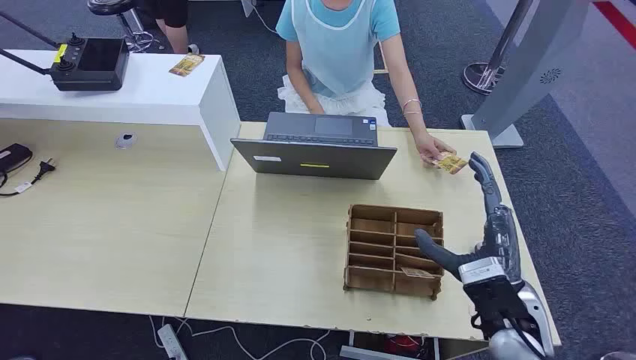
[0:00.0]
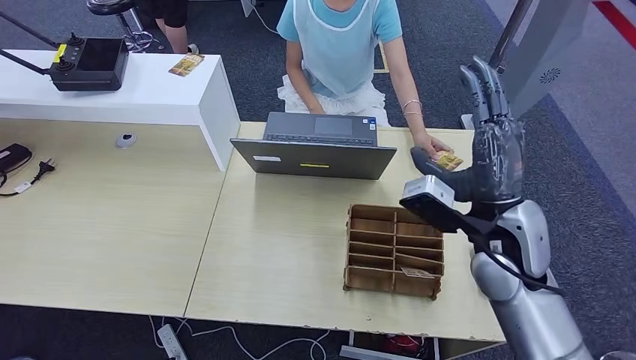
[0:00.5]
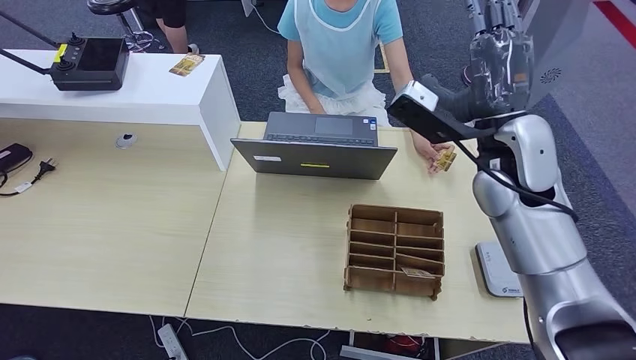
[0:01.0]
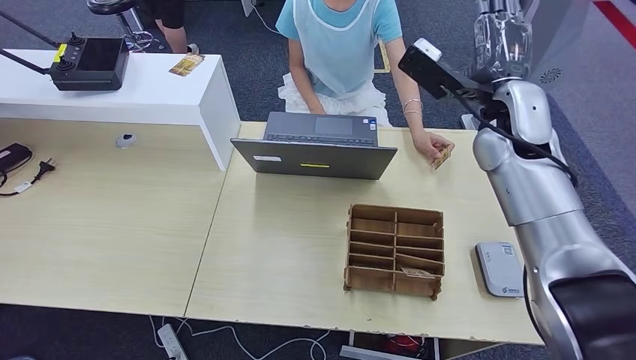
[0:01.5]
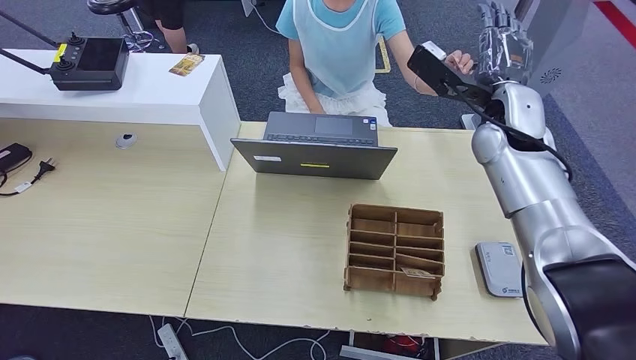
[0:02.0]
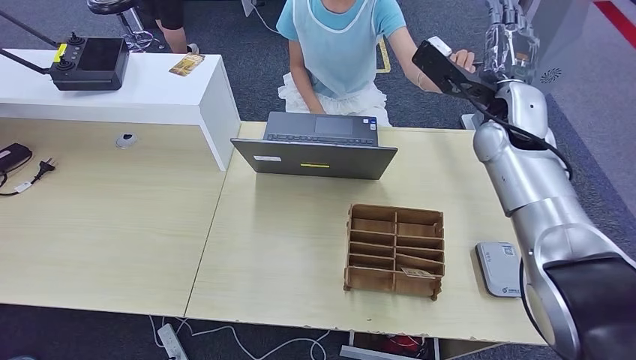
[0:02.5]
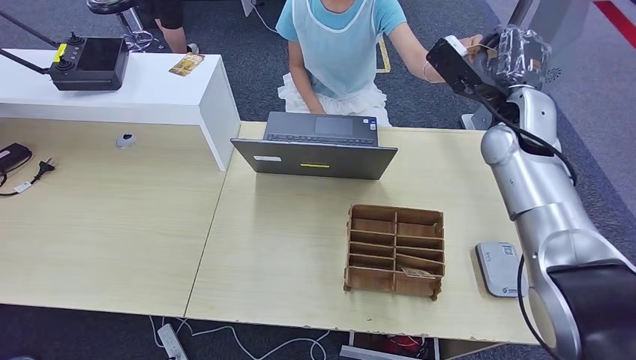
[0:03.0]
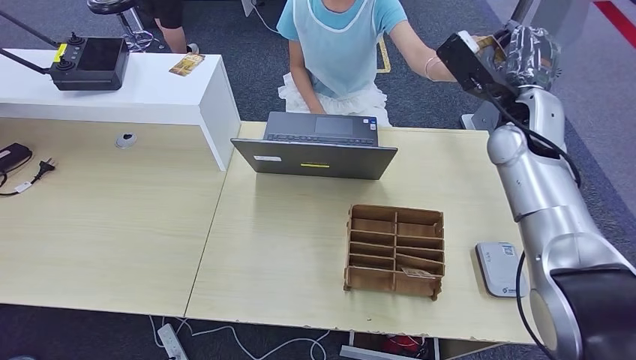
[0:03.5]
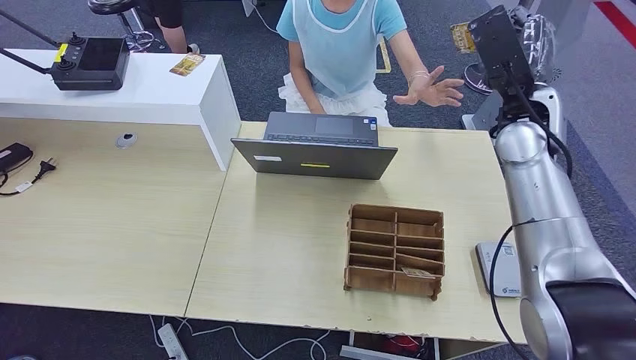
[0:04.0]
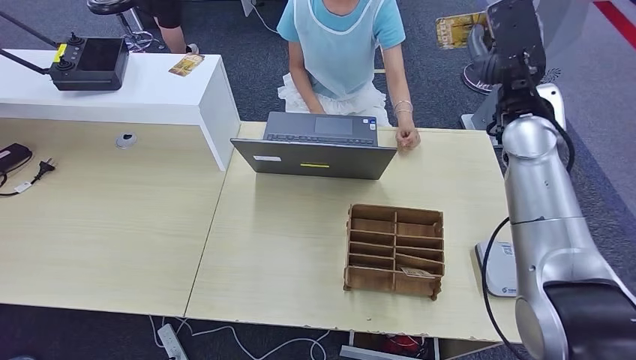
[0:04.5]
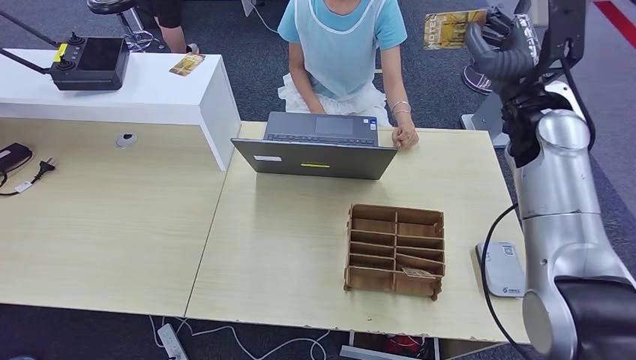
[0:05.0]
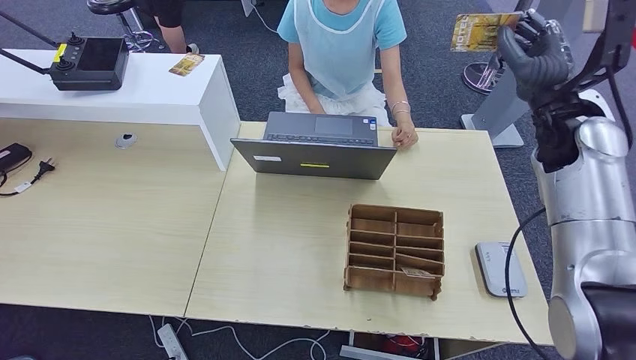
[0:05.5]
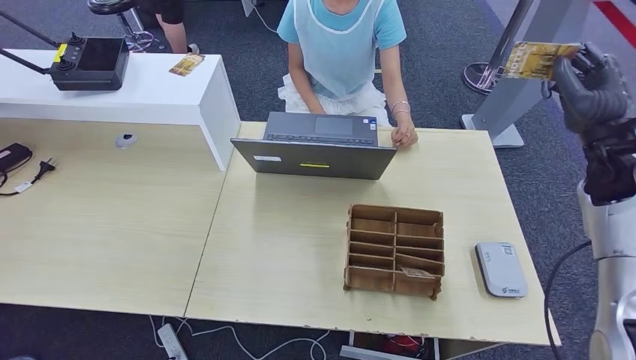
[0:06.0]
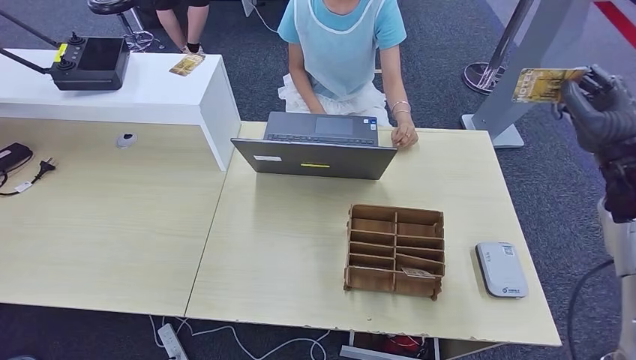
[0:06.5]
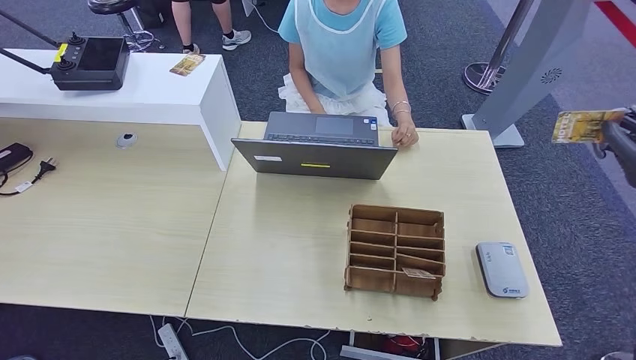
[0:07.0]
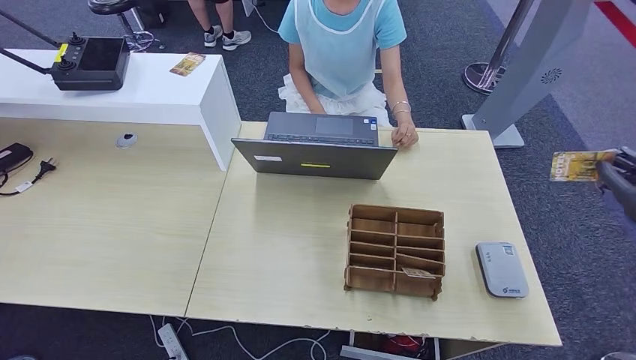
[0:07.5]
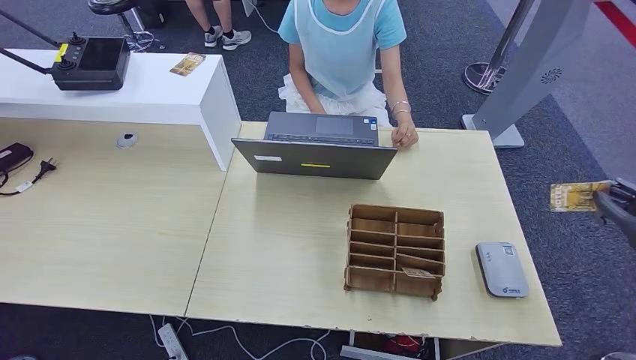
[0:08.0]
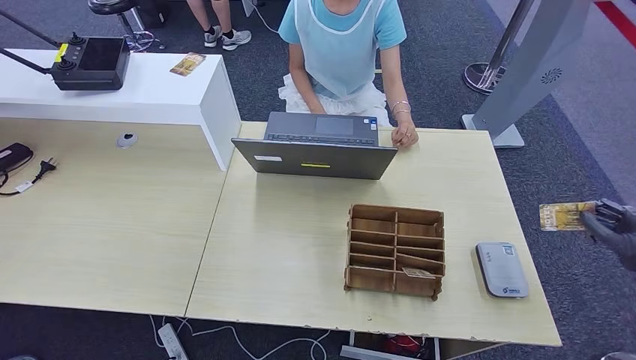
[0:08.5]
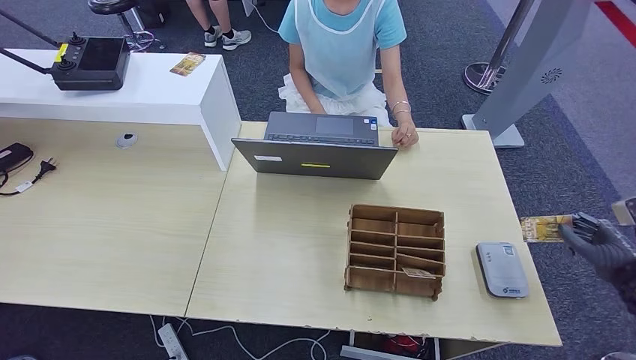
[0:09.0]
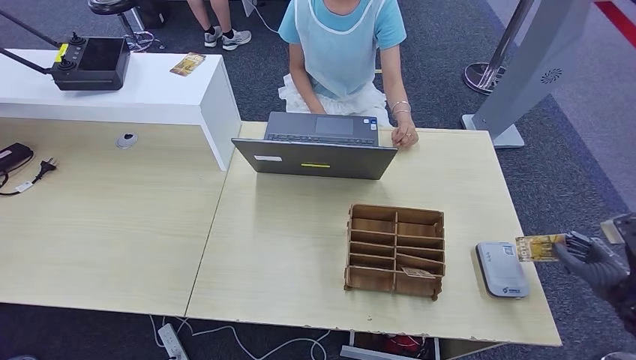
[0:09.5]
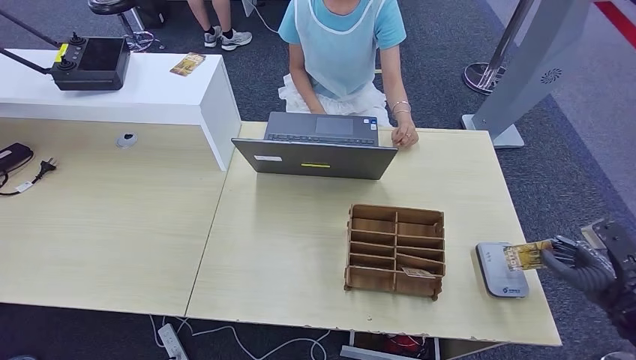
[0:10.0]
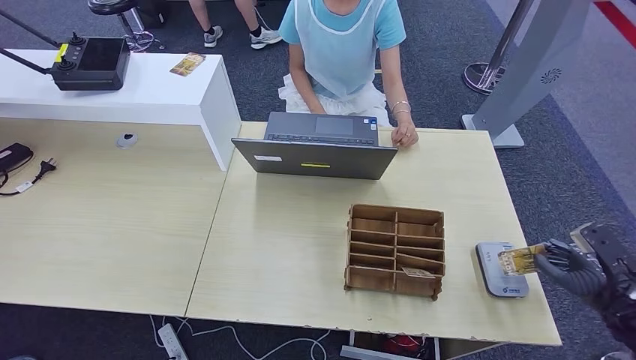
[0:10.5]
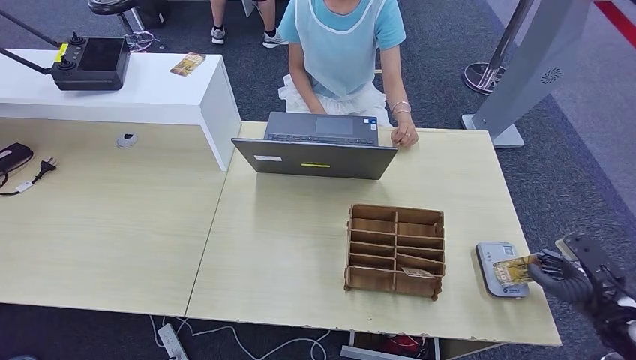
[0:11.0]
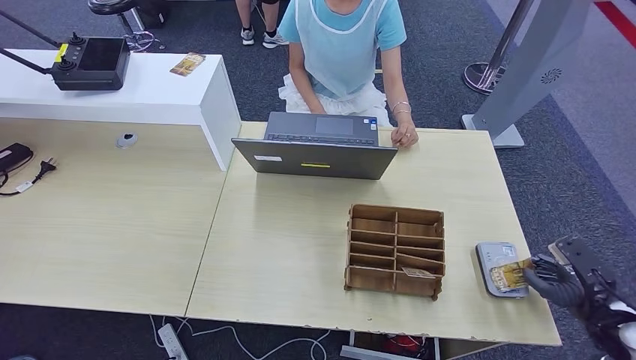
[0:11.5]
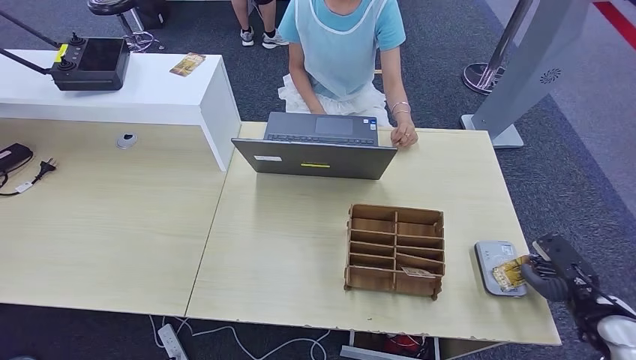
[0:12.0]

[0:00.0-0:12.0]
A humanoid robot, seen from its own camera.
Step, 0:00.0 to 0:04.5: Take the ID card from the person's hand.
0:04.0 to 0:06.0: The right hand heads to the right, covering about 15 cm.
0:06.0 to 0:08.0: The right hand is displaced to the right, backward and downward by some 20 cm.
0:08.0 to 0:10.0: The right hand heads downward, covering about 10 cm.
0:10.0 to 0:12.0: The right hand changes place by some 5 cm.

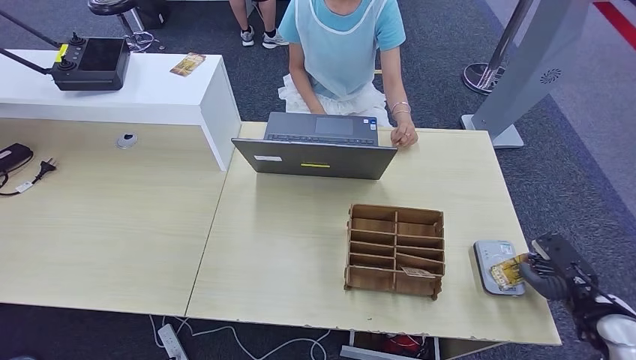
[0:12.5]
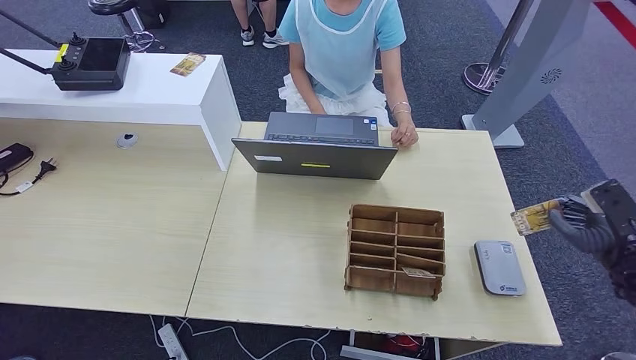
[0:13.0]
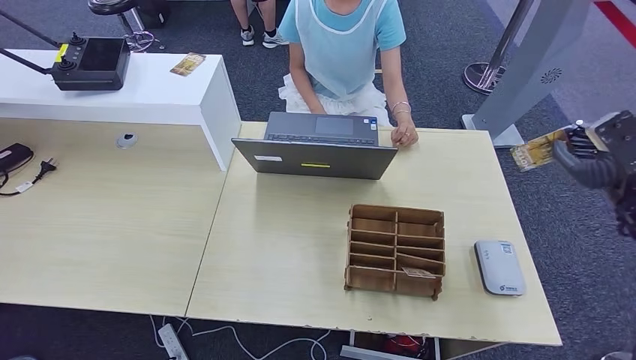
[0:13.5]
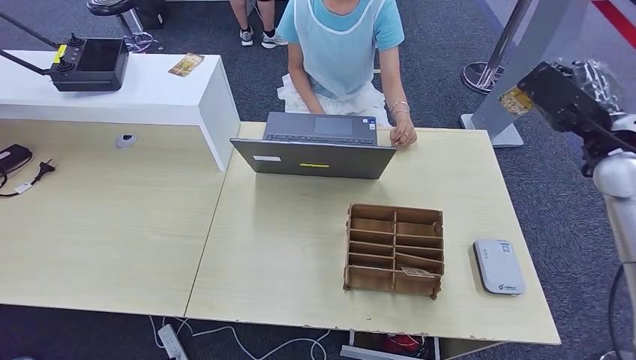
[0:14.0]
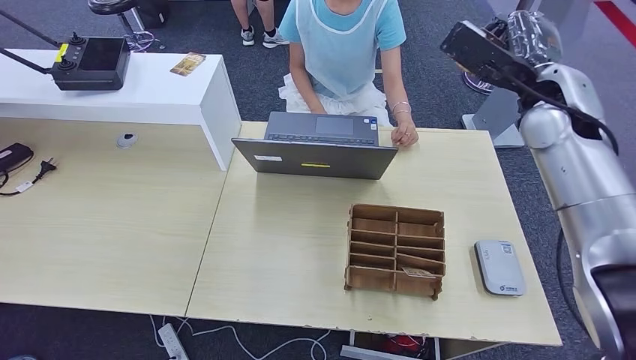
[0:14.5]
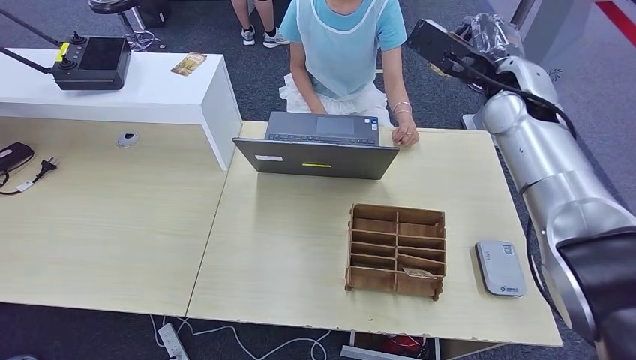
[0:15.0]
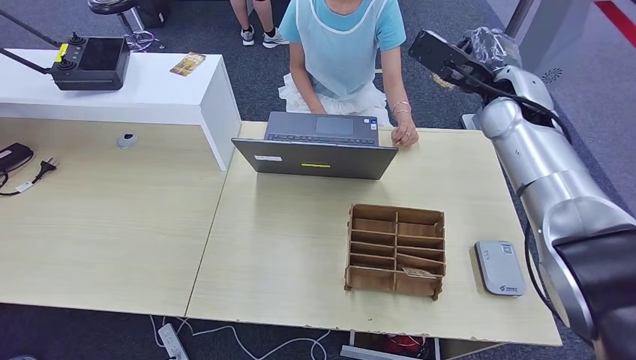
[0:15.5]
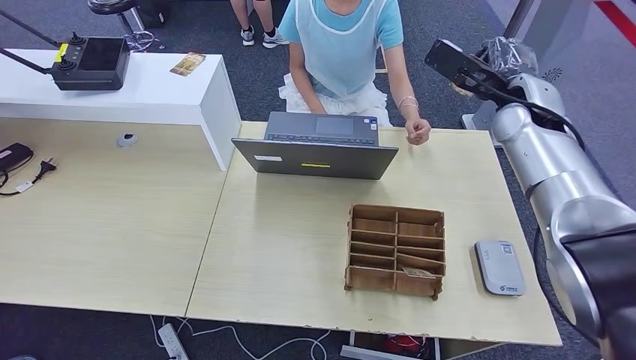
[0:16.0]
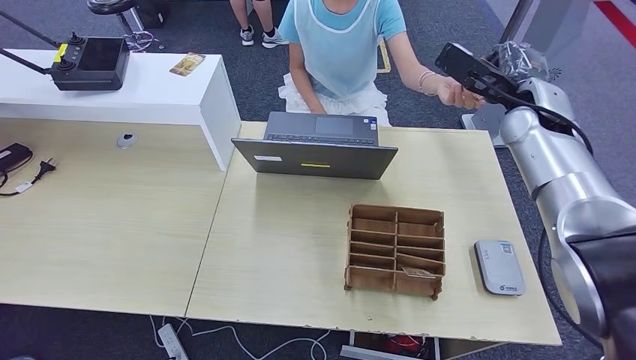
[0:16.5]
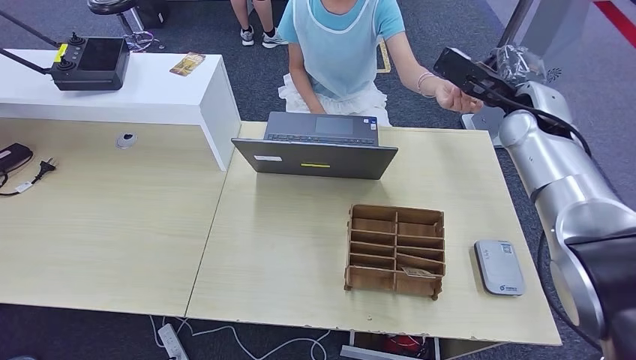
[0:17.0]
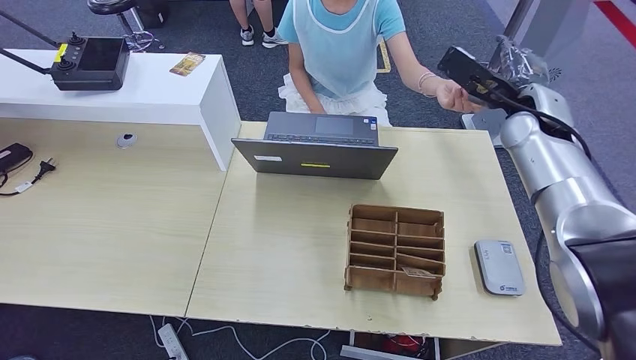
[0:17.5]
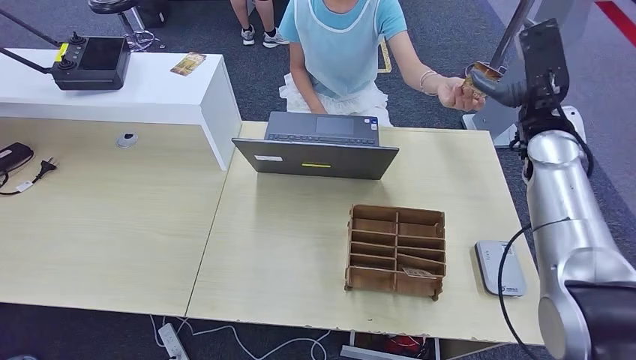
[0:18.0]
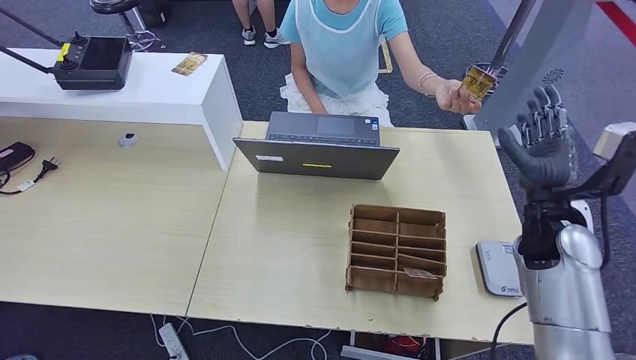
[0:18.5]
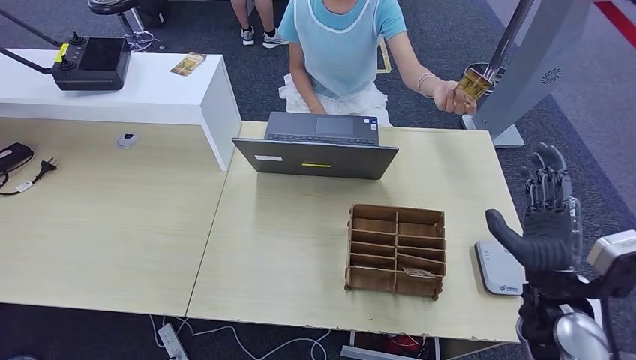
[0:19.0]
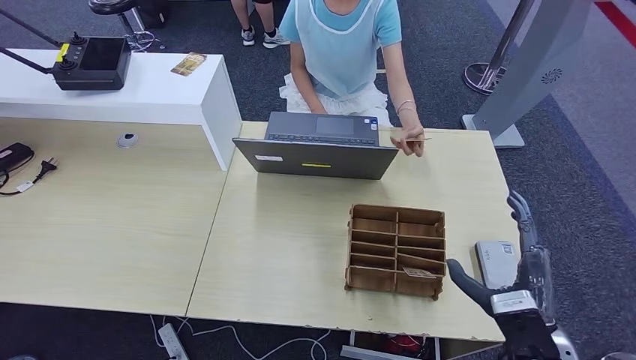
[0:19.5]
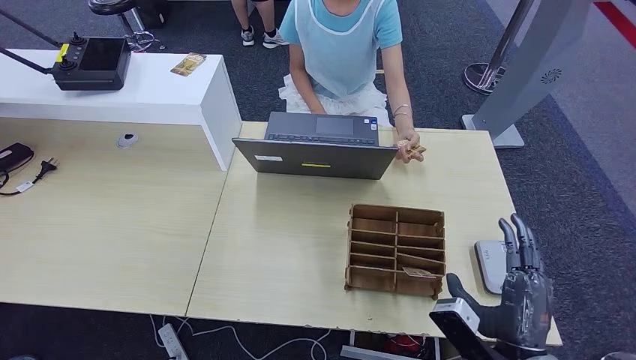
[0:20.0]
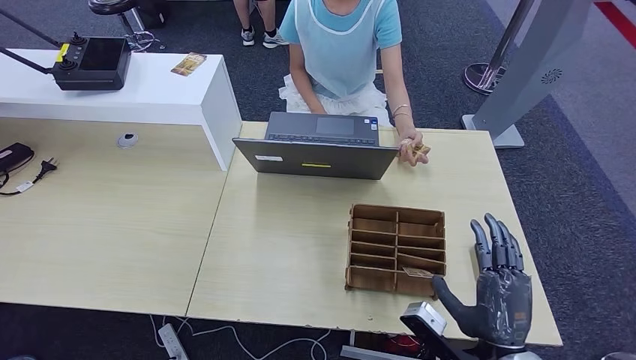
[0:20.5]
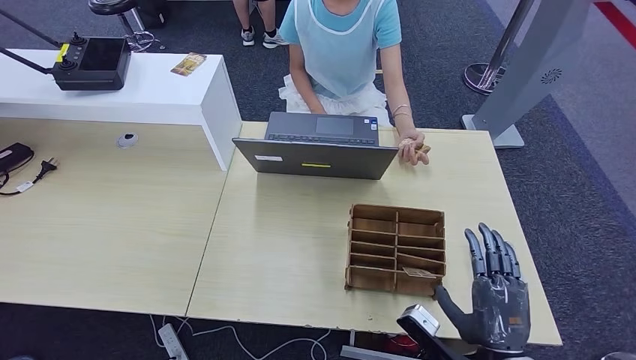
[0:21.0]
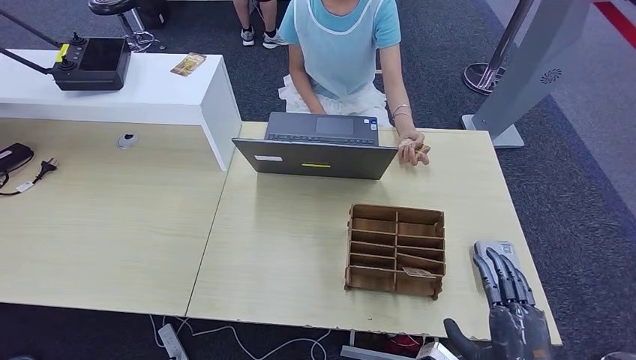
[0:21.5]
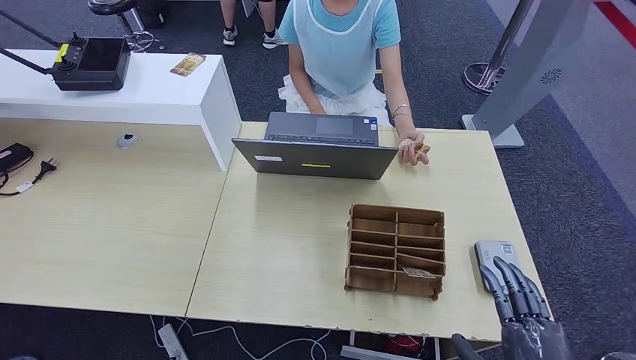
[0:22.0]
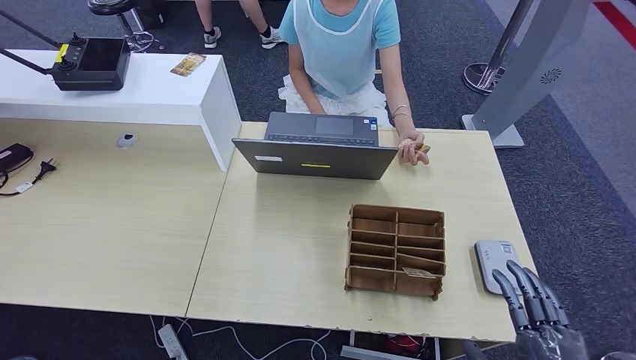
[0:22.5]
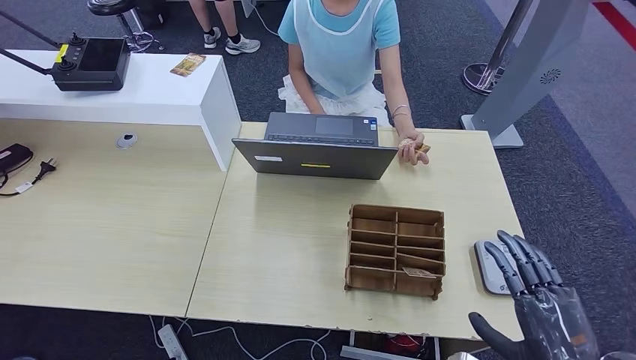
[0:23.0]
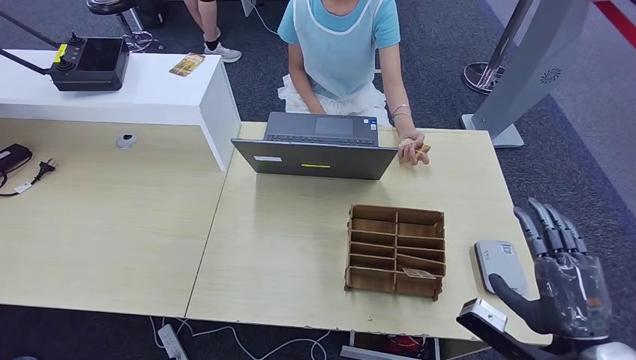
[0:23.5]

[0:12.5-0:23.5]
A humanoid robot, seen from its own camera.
Step, 0:14.5 to 0:20.5: Hand the ID card to the person.
0:12.5 to 0:14.5: The right hand travels upward, forward and to the left by roughly 40 cm.
0:14.5 to 0:16.0: The hands move only a little.
0:16.0 to 0:18.0: The right hand shifts by about 5 cm.
0:18.0 to 0:20.0: The right hand shifts some 35 cm backward and downward.
0:20.0 to 0:21.5: The right hand travels backward by approximately 5 cm.
0:21.5 to 0:23.5: The right hand is displaced to the right and forward by about 10 cm.
